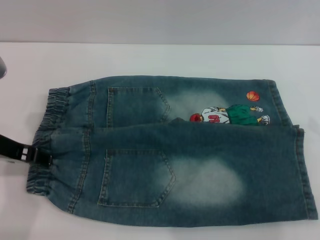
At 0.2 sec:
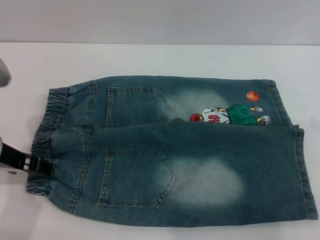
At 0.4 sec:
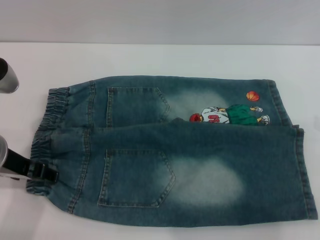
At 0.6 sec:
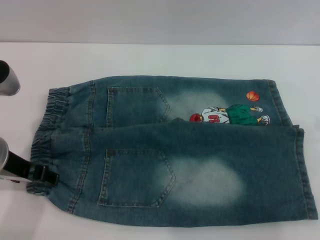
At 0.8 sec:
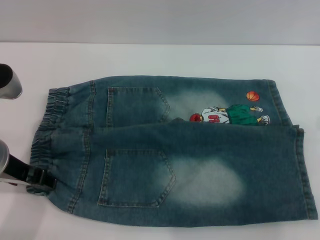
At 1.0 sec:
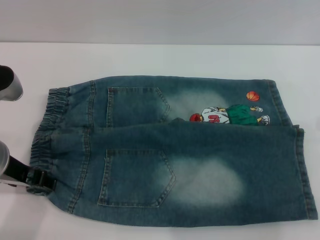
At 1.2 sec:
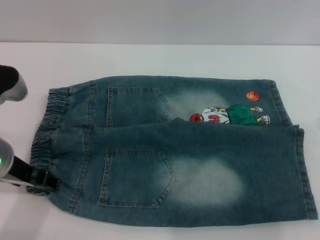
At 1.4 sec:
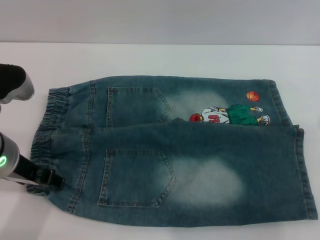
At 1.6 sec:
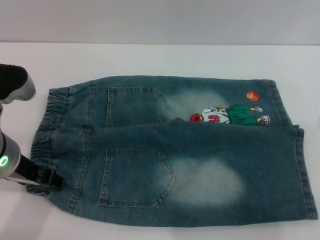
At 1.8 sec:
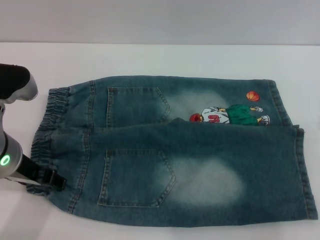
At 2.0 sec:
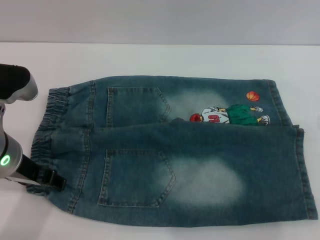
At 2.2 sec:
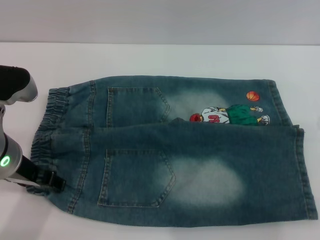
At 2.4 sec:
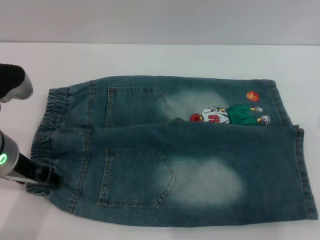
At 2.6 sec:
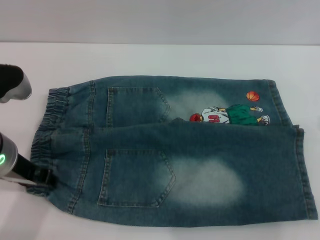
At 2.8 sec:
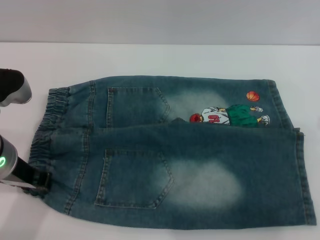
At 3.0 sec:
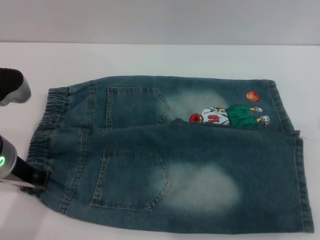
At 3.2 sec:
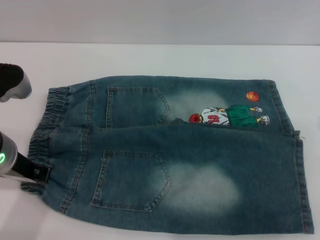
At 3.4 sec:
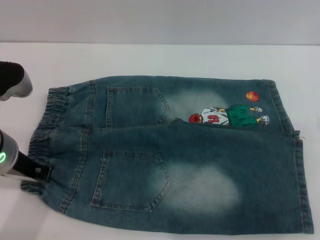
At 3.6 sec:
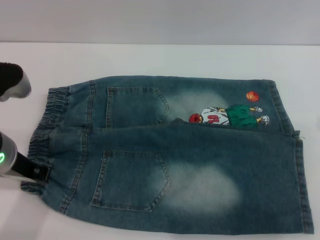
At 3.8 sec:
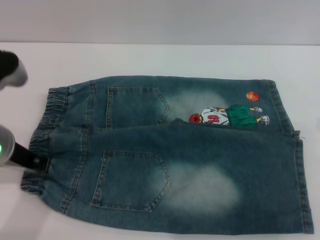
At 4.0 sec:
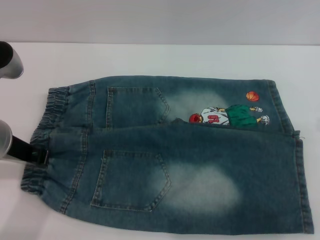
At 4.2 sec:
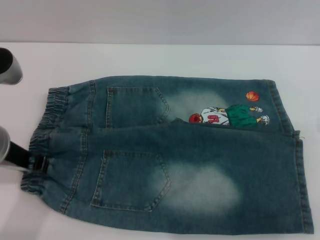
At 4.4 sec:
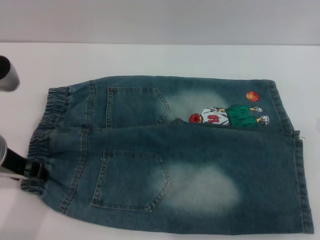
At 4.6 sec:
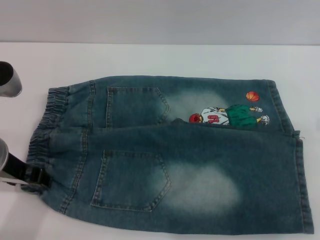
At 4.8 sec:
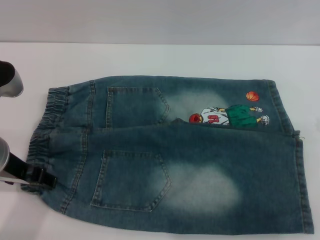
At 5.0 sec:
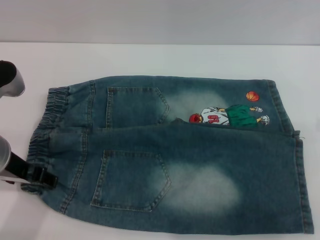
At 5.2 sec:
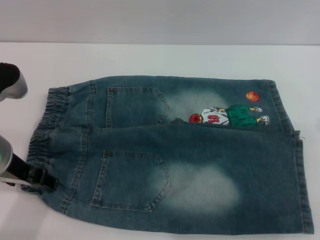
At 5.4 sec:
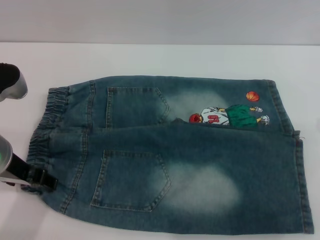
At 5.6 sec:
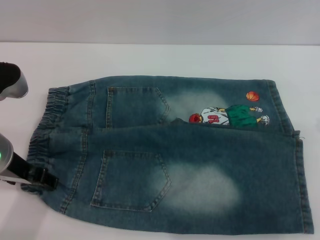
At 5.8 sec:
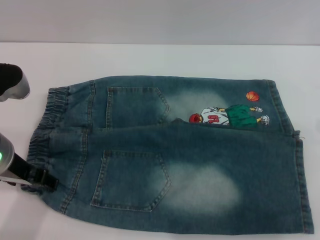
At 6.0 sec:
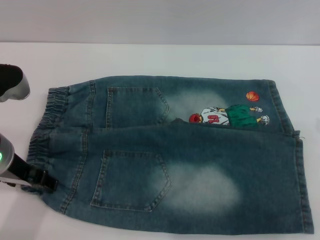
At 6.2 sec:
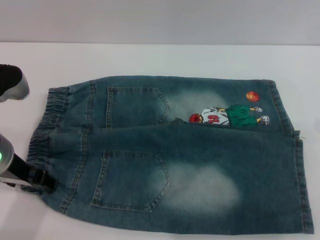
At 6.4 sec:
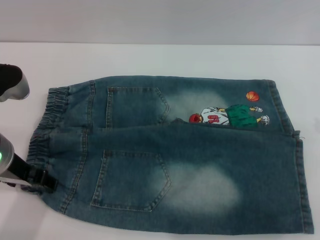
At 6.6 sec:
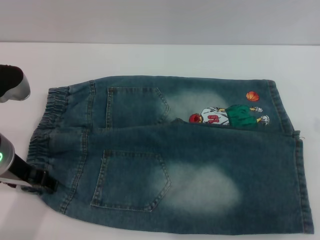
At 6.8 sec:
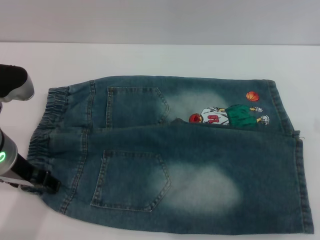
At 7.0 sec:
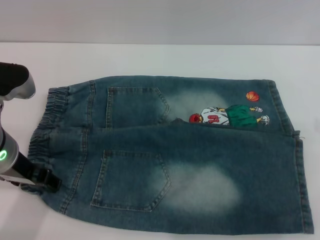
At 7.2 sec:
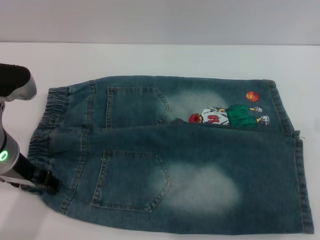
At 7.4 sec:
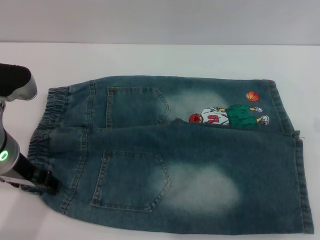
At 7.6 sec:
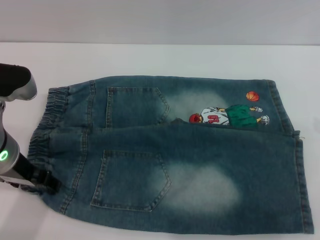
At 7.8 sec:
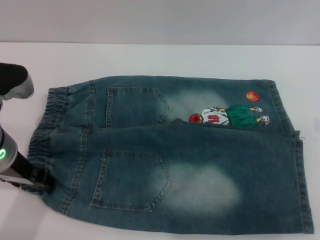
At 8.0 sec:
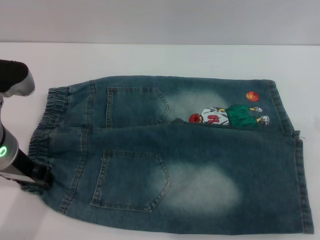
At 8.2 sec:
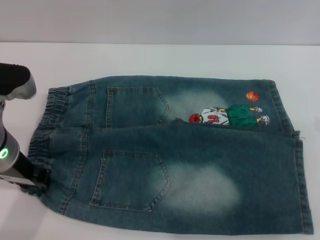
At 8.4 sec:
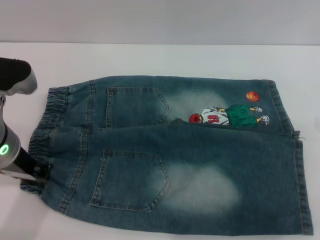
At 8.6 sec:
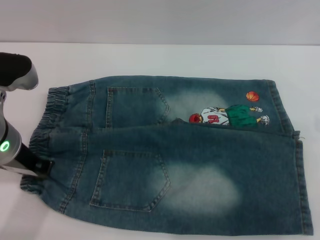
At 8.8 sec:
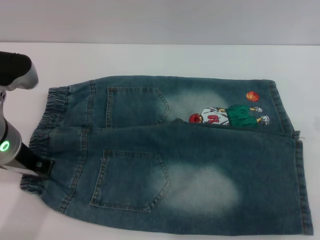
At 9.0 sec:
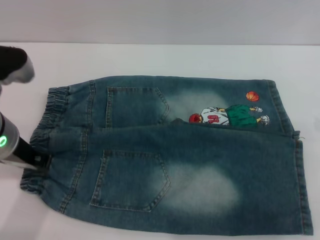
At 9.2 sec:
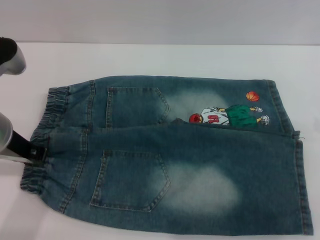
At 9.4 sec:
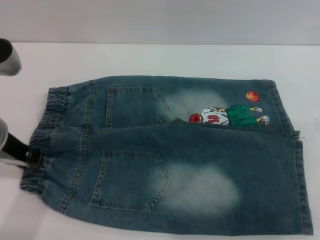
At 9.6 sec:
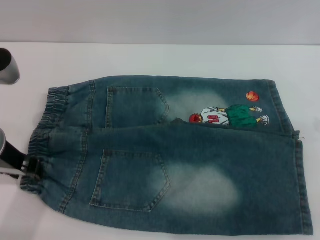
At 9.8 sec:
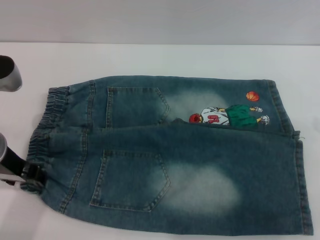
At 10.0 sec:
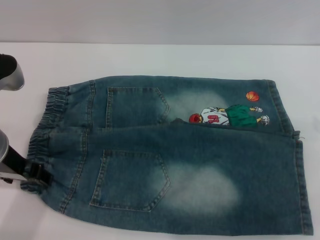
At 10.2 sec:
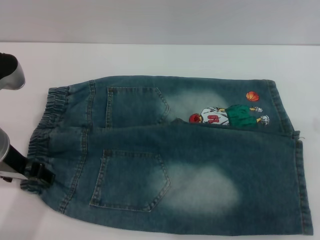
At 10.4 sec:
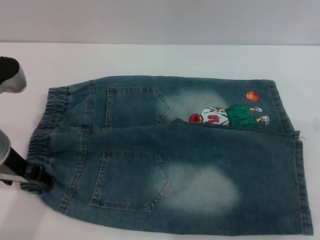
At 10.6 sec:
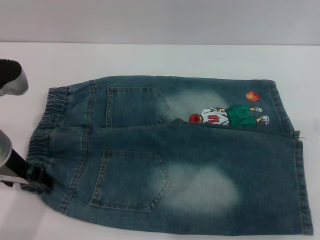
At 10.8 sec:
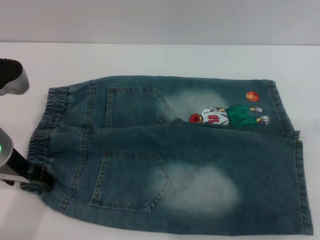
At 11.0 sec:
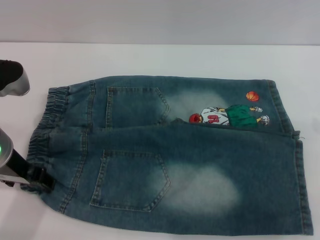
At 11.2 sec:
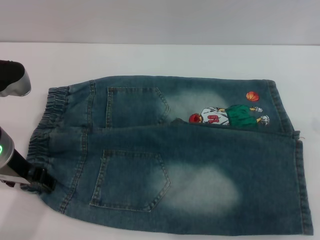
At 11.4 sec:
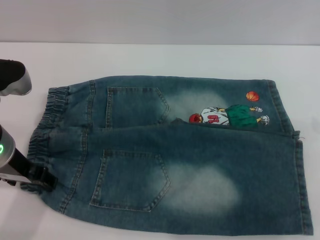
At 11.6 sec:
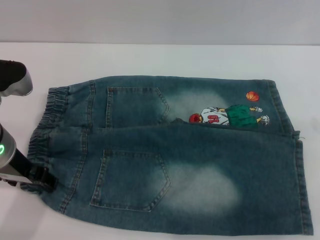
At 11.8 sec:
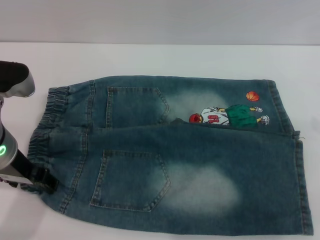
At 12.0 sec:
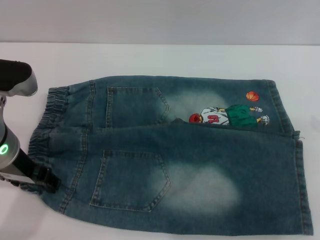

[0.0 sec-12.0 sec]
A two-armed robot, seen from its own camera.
0.0 sec to 1.6 sec: There are only small adjustments of the grippers.
1.6 sec to 3.0 sec: The left gripper closes.
3.0 sec to 4.4 sec: The grippers move only a little.
4.4 sec to 6.0 sec: The left gripper opens its fingers.
6.0 sec to 7.6 sec: Neither gripper changes place.
7.6 sec to 9.0 sec: The left gripper closes up.
9.0 sec to 10.4 sec: The left gripper opens up.
10.4 sec to 12.0 sec: There are only small adjustments of the grippers.

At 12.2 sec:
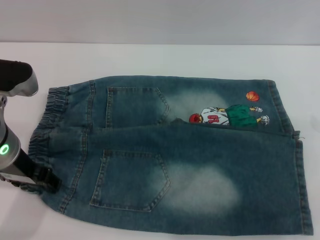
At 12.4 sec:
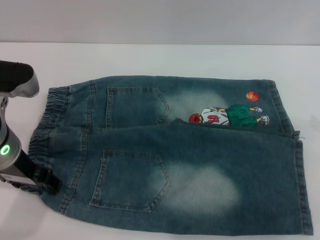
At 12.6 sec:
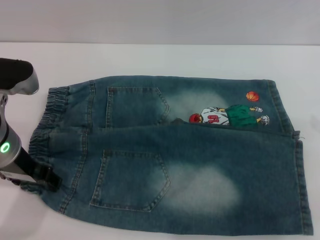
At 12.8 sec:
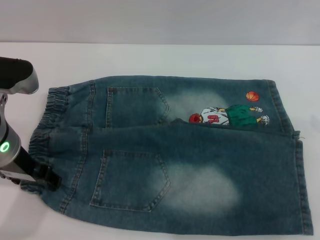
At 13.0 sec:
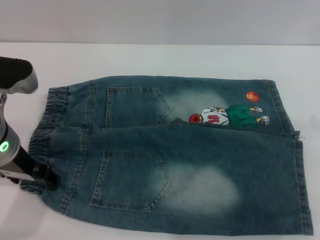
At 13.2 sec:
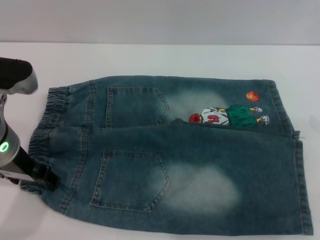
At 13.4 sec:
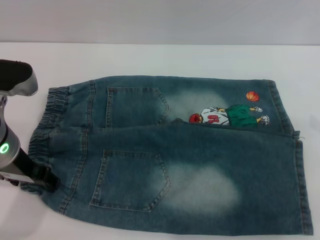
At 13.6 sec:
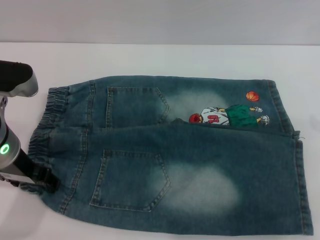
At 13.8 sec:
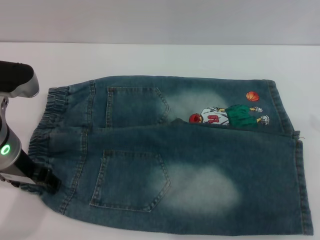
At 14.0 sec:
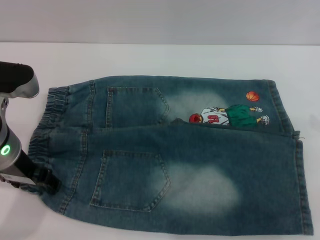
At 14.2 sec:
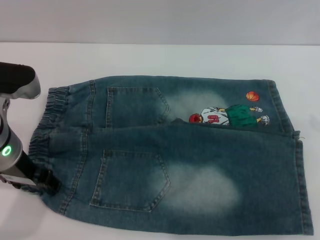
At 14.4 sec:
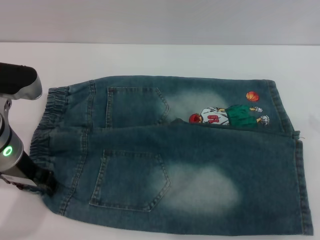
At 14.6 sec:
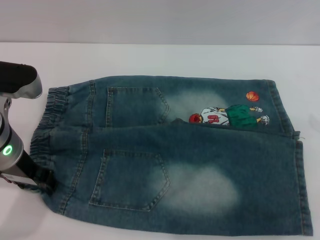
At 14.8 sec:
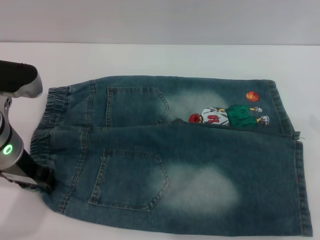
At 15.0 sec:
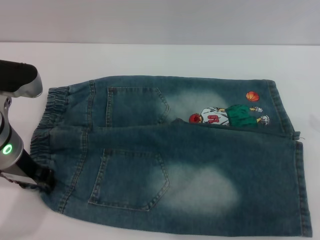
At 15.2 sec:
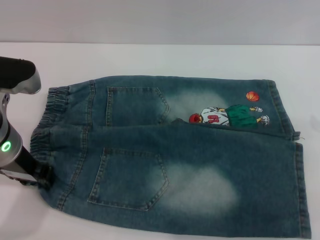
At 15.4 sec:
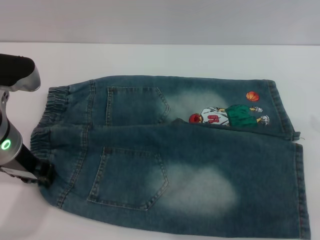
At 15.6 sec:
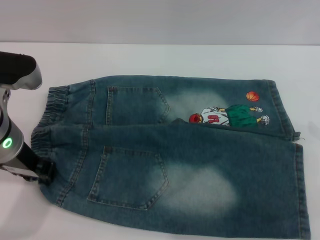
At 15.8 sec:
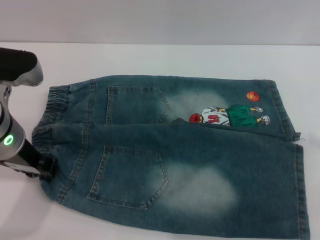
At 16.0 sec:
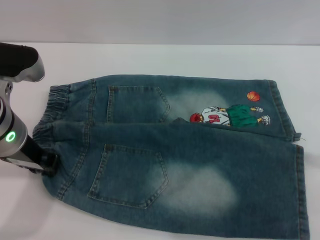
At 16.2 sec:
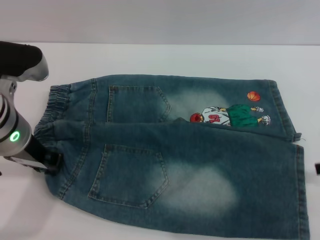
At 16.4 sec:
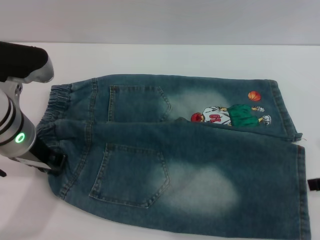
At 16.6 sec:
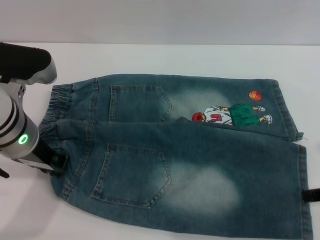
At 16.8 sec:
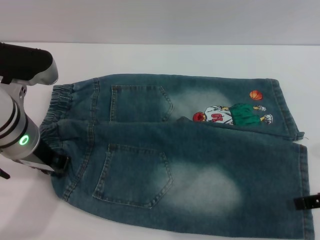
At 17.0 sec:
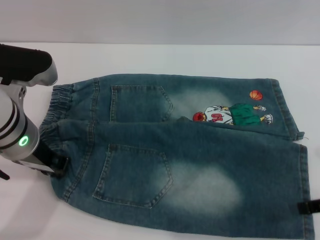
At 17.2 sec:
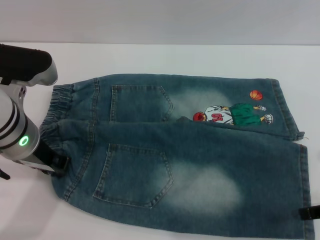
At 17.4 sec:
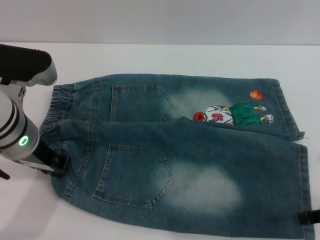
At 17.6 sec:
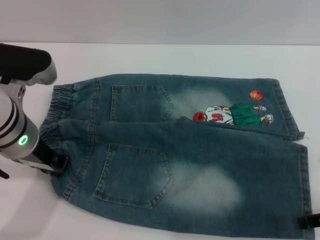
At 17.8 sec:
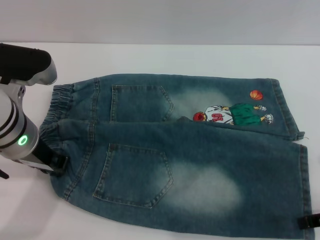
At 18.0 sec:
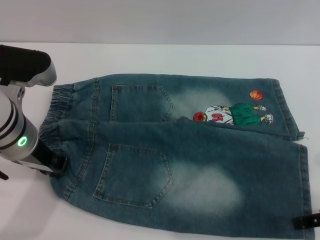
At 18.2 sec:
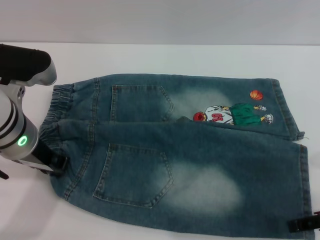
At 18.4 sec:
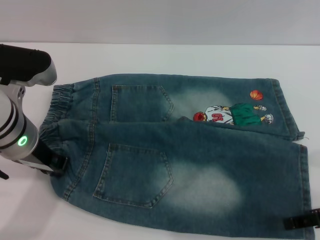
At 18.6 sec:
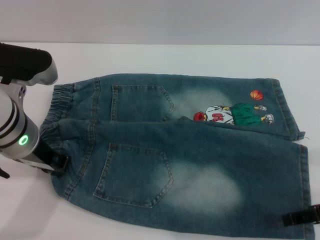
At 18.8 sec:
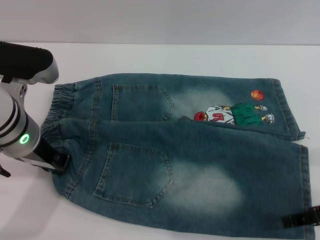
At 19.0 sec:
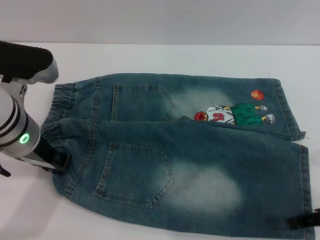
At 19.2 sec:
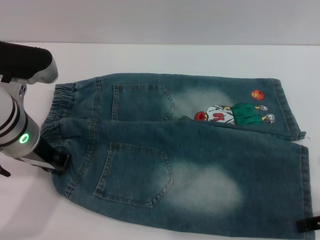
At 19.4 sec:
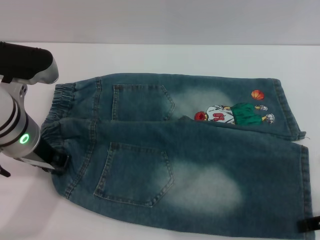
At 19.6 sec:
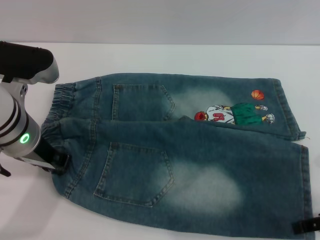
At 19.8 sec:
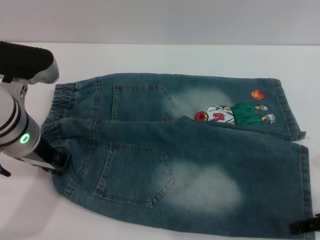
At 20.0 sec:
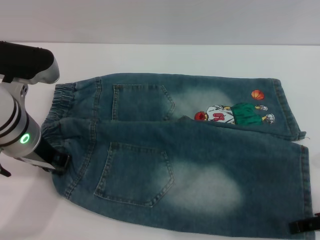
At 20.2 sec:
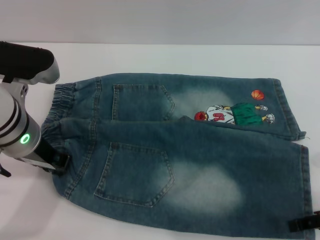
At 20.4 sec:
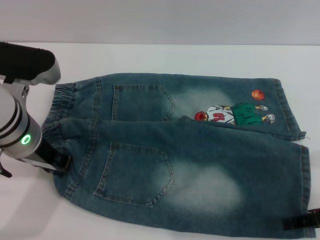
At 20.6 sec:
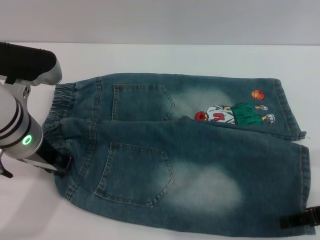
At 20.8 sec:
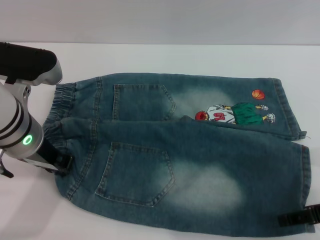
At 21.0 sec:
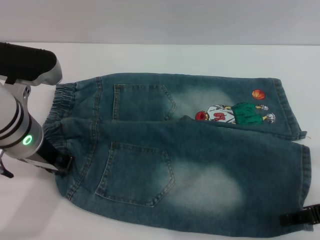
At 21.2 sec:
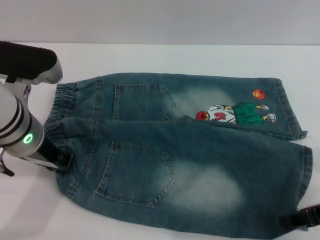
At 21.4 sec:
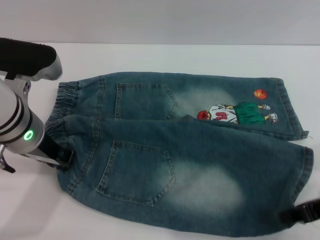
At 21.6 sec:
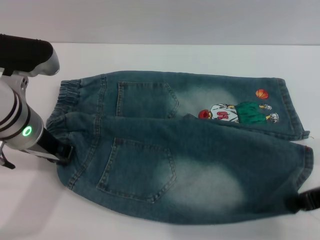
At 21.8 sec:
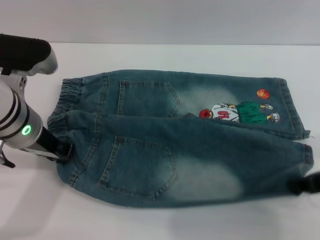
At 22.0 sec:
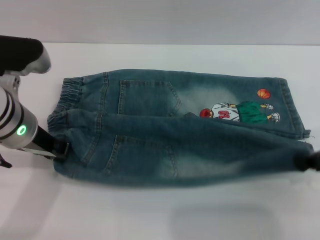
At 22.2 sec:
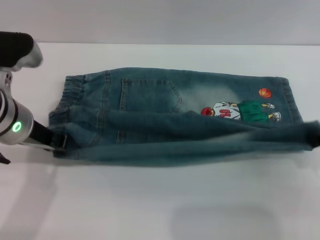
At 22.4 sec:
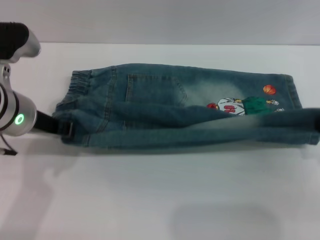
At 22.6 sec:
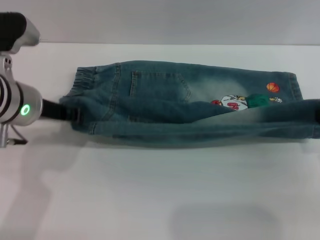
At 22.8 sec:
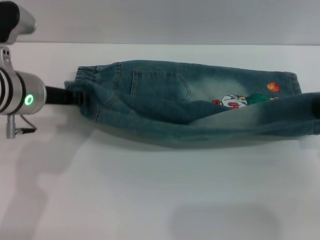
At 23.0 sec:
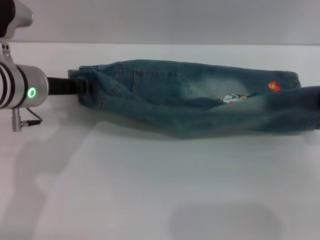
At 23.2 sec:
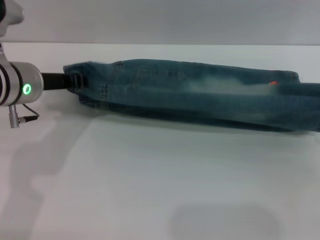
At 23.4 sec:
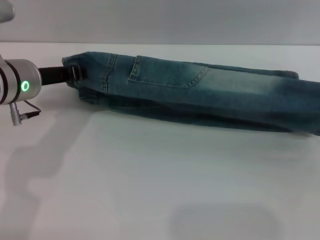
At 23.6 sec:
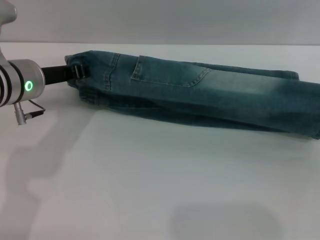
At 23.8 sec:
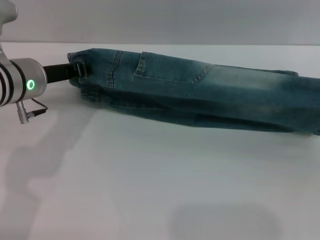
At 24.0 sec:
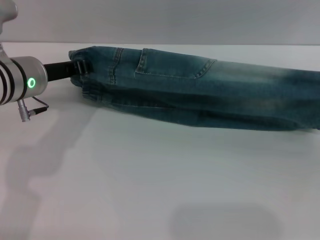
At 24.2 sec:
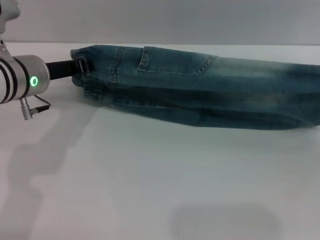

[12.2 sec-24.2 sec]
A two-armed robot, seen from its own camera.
12.2 sec to 13.8 sec: Both grippers stay put.
13.8 sec to 15.2 sec: The left gripper closes up.
15.2 sec to 16.6 sec: The right gripper moves downward, roughly 5 cm.
16.6 sec to 18.2 sec: The grippers make only small movements.
18.2 sec to 19.8 sec: Both grippers stay put.
19.8 sec to 21.2 sec: There are only small adjustments of the grippers.
21.2 sec to 22.6 sec: The right gripper goes some 5 cm upward, and closes.
22.6 sec to 24.2 sec: The right gripper heads to the right, covering some 5 cm.
